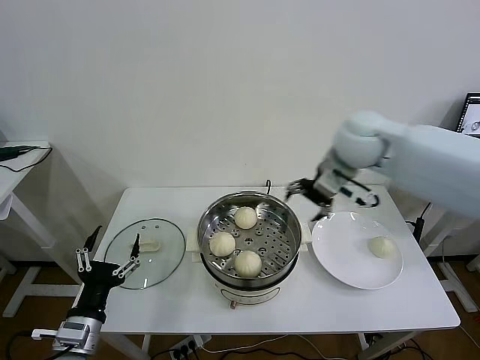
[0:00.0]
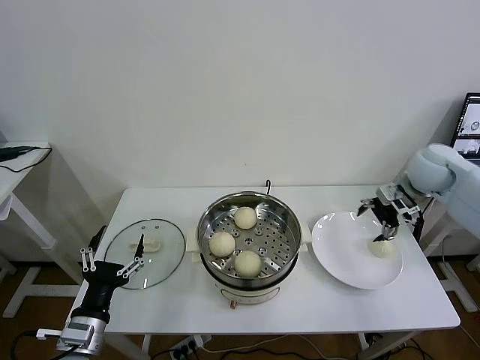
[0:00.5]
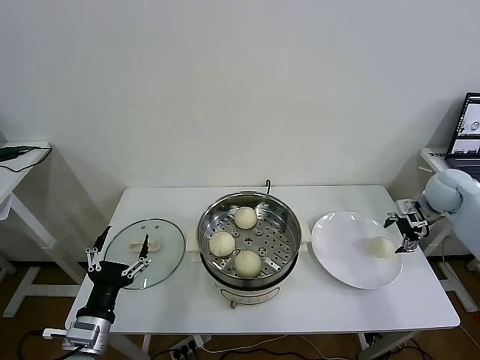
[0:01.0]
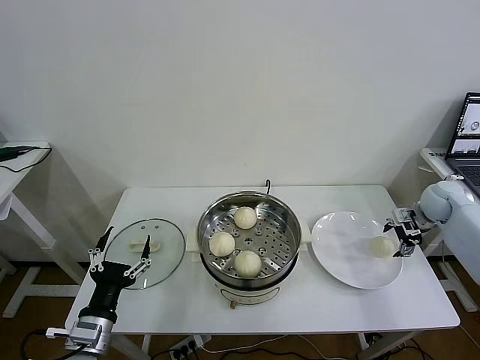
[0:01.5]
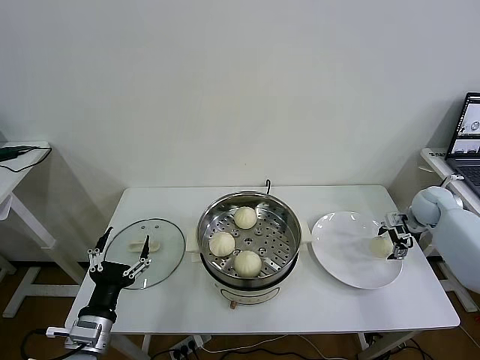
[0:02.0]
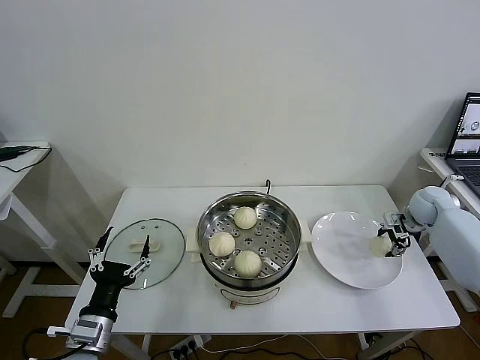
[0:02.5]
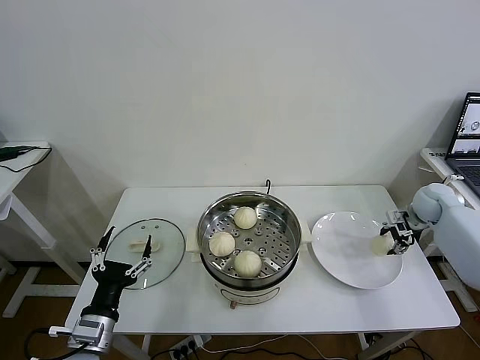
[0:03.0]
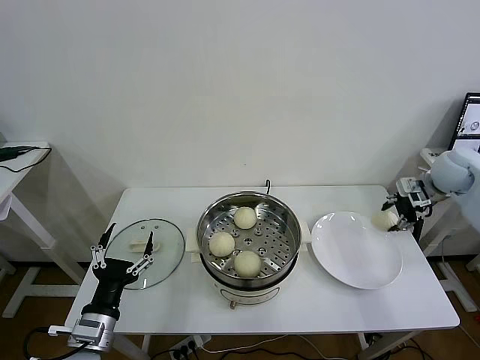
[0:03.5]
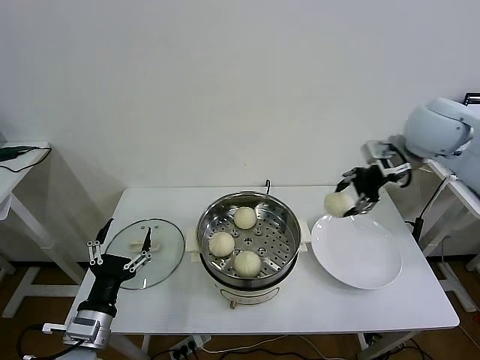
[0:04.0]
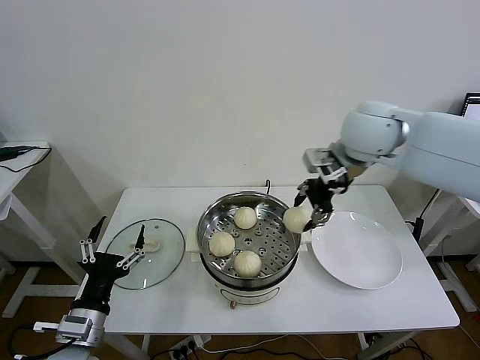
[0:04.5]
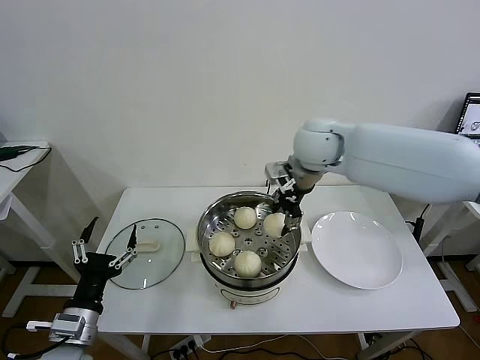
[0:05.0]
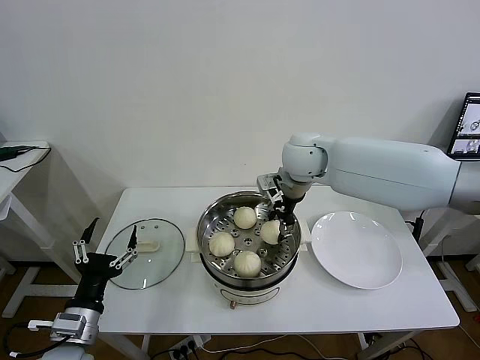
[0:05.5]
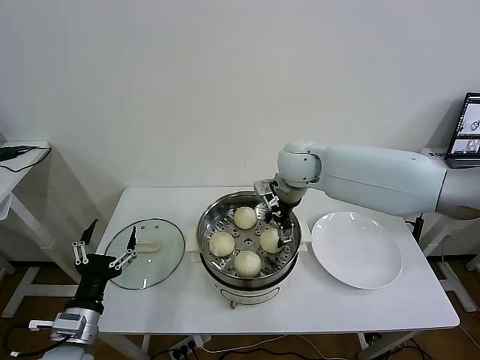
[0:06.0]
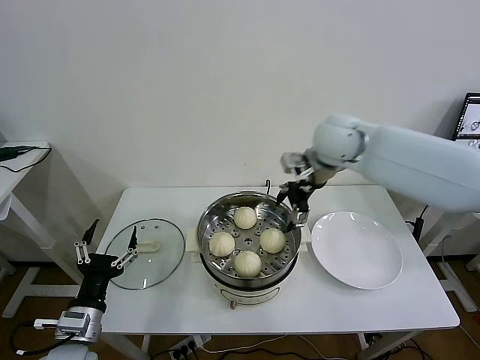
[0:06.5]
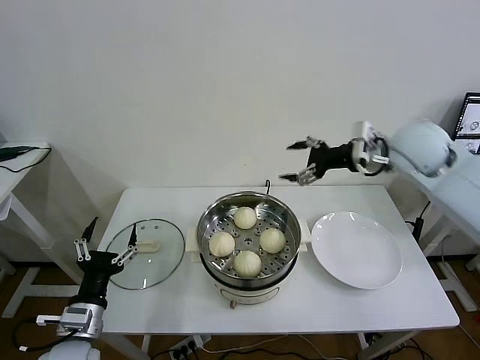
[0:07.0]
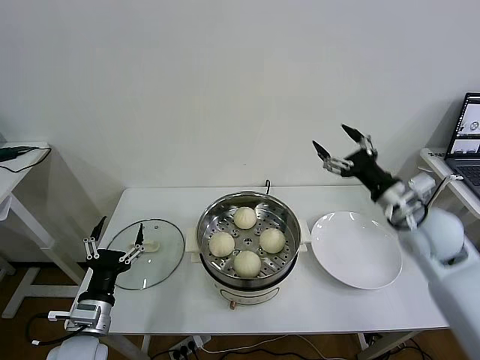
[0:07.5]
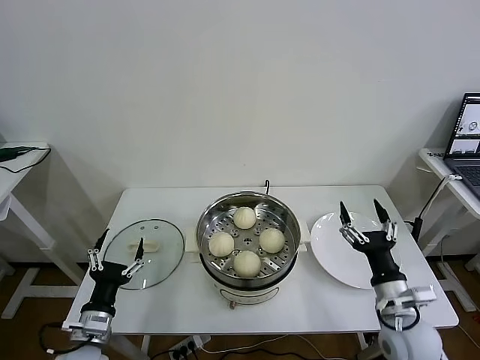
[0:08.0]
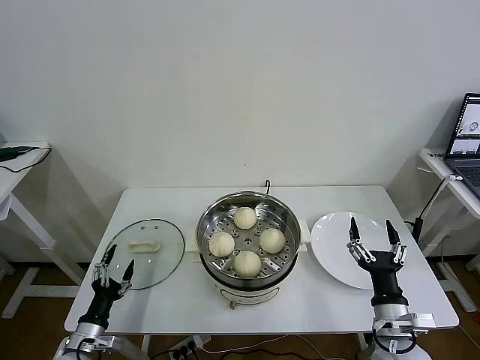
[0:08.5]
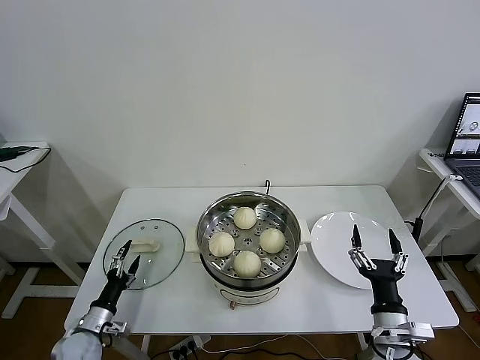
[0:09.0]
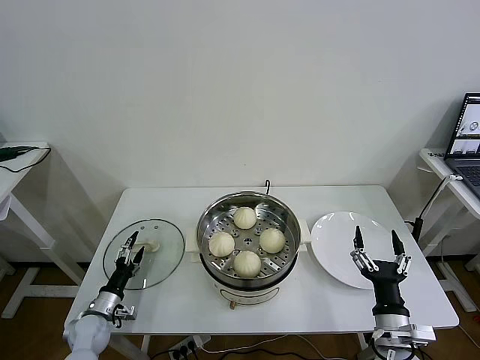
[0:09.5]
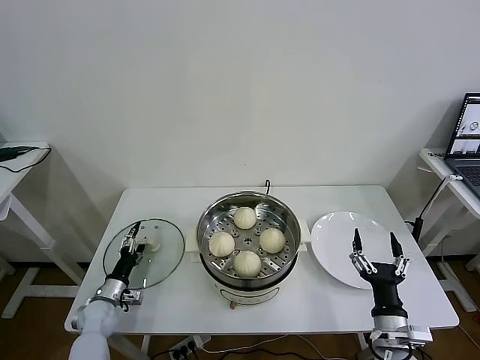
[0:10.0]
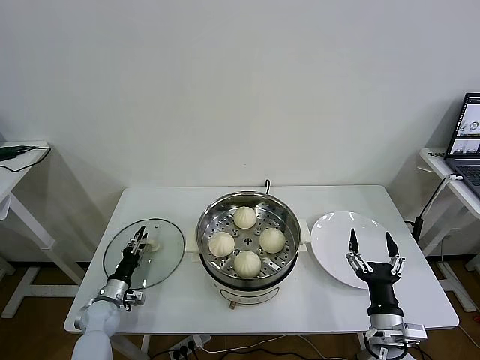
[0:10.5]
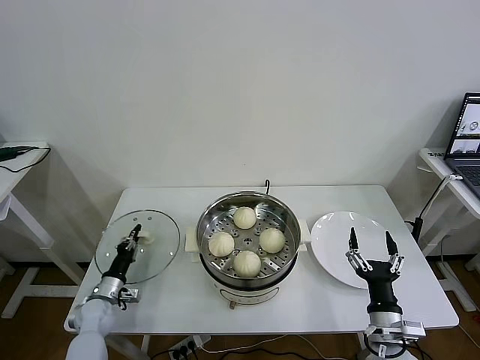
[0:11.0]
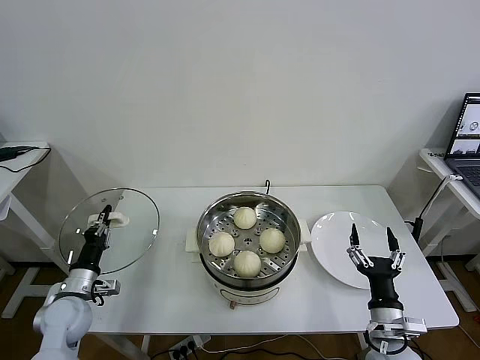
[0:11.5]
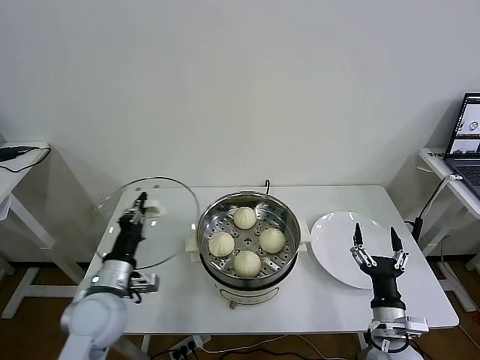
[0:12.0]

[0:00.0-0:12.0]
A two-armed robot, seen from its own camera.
Task of the whole recording: take steamed baozi put them in steamer then cover it.
Step, 0:00.0 to 0:02.5: Grasp the baozi in the plate with right gripper.
Step, 0:03.0 to 0:06.0: Place the baozi on the steamer with right gripper.
Step, 0:06.5 to 0:10.5: Grasp the pot lid with left gripper.
0:00.0 to 0:02.0: The right gripper is displaced to the right and downward by about 35 cm.
0:02.0 to 0:04.0: The right gripper is displaced upward and to the left by approximately 30 cm, and closes up.
0:04.0 to 0:06.0: The right gripper heads to the left and downward, covering about 25 cm, and opens.
0:06.0 to 0:08.0: The left gripper is displaced downward by approximately 5 cm, while the right gripper is displaced backward, to the right and downward by some 40 cm.
0:08.0 to 0:10.0: The left gripper goes roughly 20 cm downward, forward and to the left; the right gripper moves downward and backward, approximately 5 cm.
0:10.0 to 0:12.0: The left gripper shifts roughly 25 cm upward and to the right, and closes up.

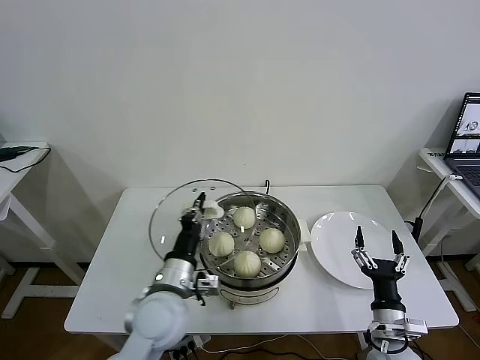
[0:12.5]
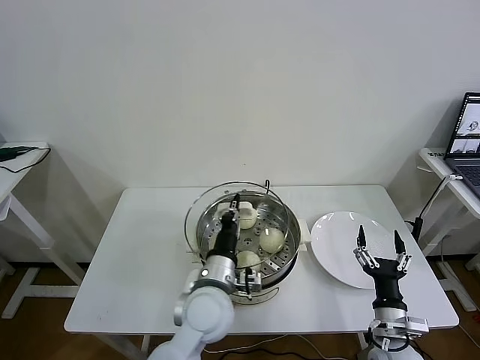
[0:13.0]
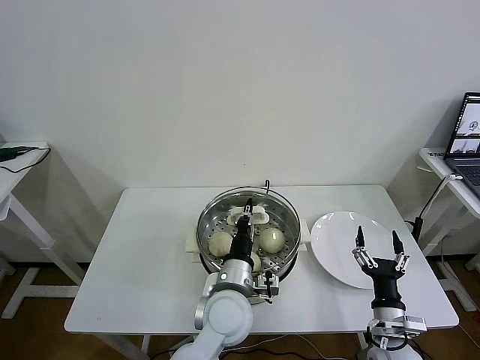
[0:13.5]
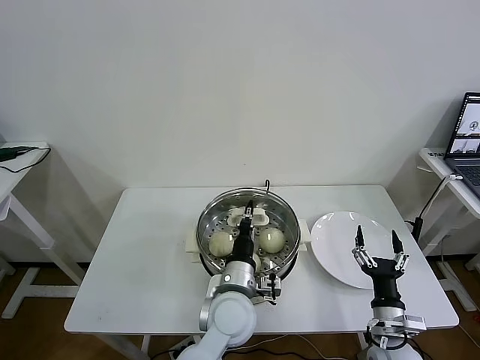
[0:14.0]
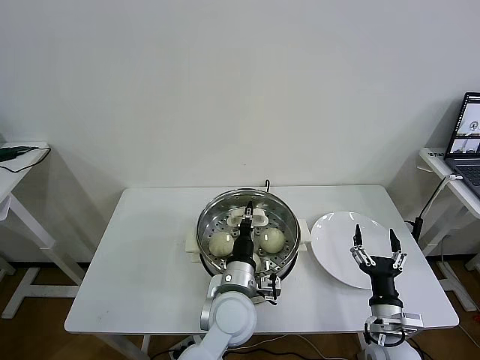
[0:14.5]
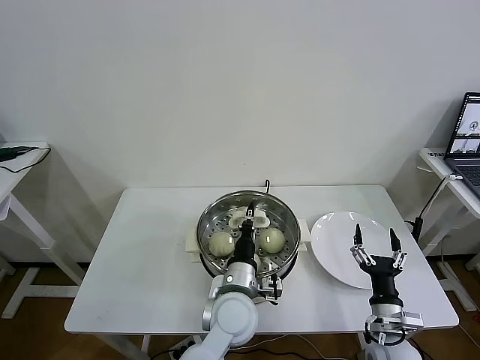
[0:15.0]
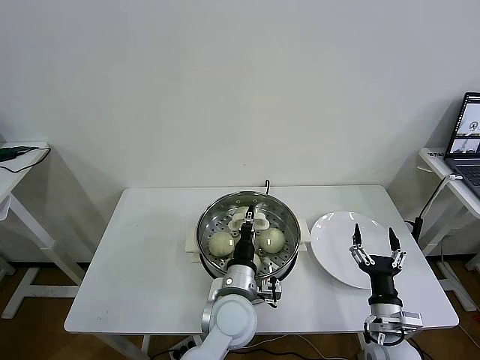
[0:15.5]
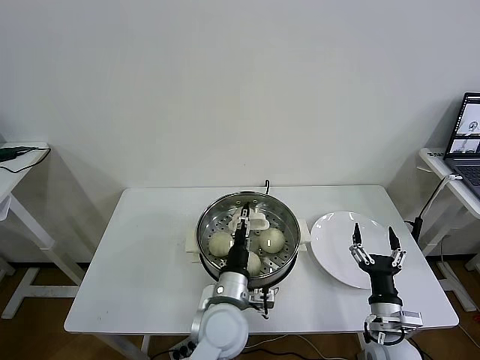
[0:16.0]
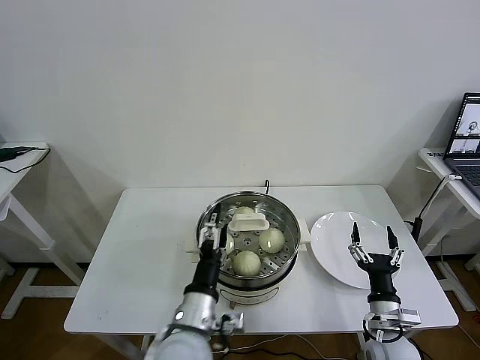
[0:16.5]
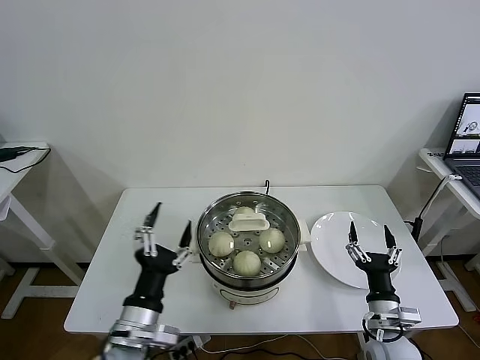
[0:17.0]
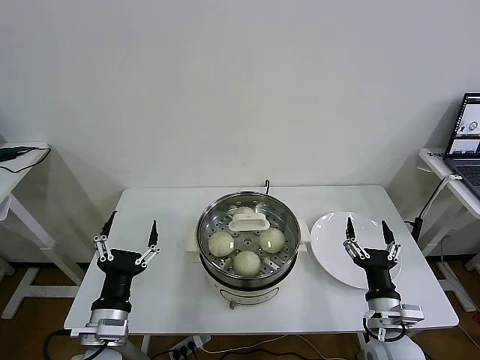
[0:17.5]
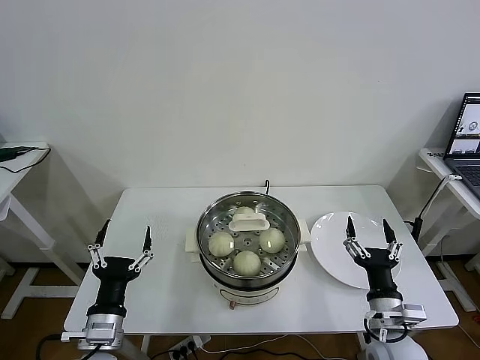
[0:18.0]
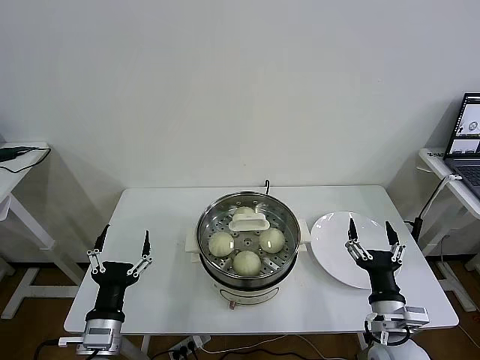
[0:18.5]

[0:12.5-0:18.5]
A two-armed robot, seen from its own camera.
Task of the whole recording: take steamed baozi put them in steamer then cover it.
Step, 0:12.5 to 0:16.5: Place the pot lid on the steamer with left gripper.
0:12.5 to 0:14.5: The left gripper heads to the right, covering some 15 cm.
0:14.5 to 0:16.5: The left gripper moves to the left and backward, some 10 cm, and opens up.
0:16.5 to 0:18.5: The left gripper travels to the left by roughly 15 cm, while the right gripper heads upward, covering approximately 5 cm.

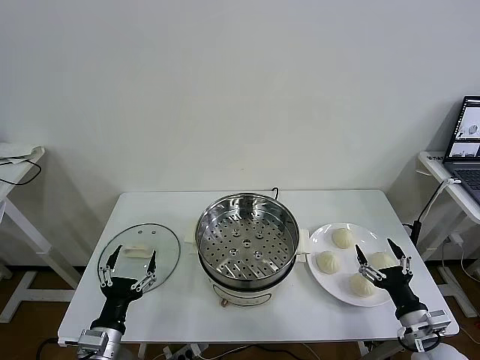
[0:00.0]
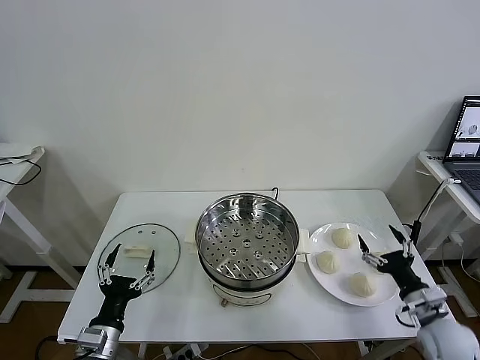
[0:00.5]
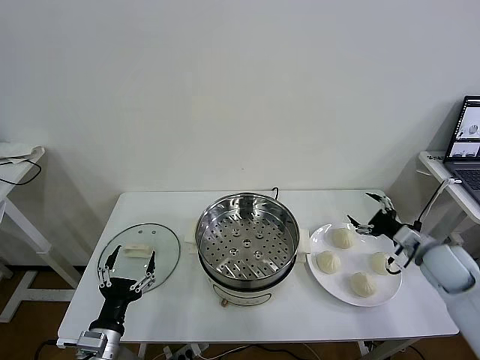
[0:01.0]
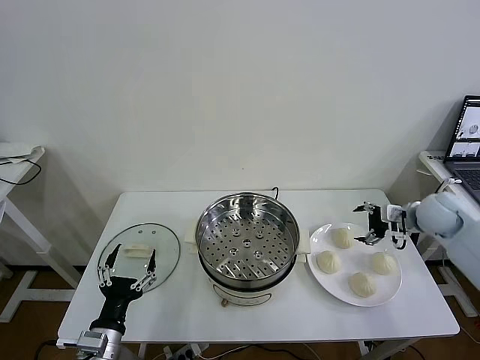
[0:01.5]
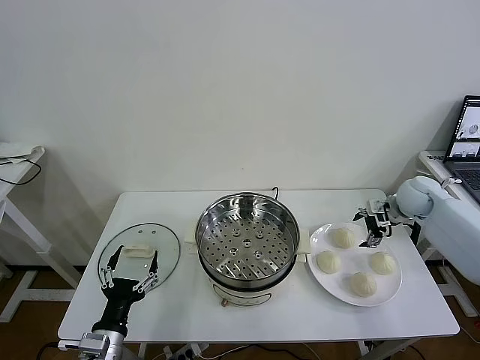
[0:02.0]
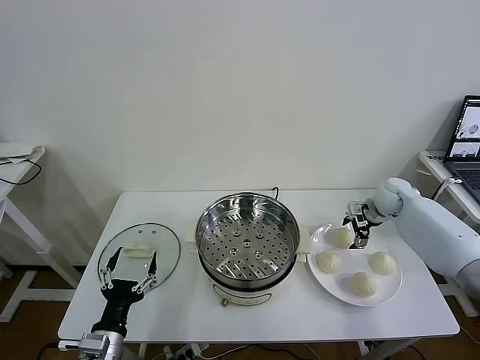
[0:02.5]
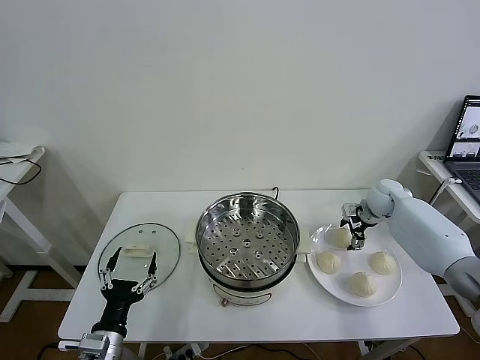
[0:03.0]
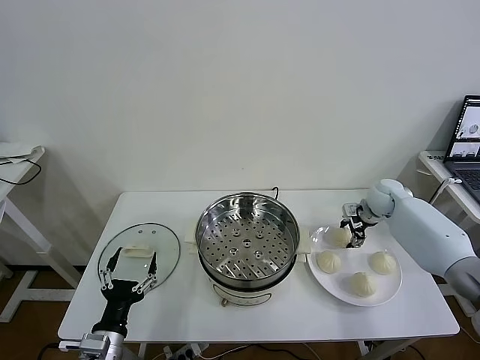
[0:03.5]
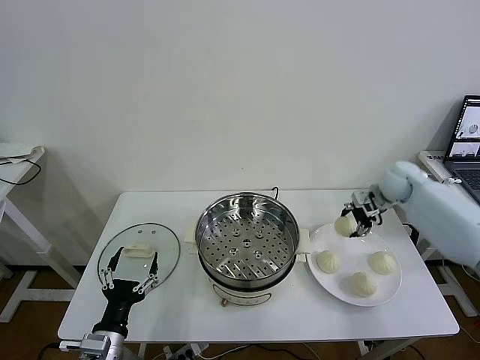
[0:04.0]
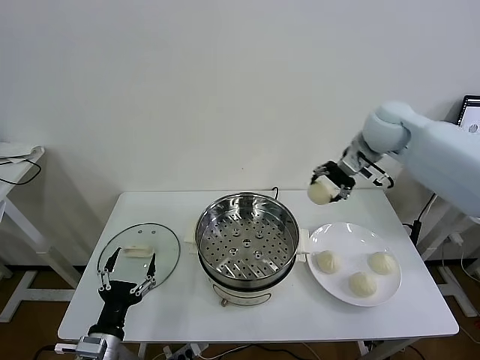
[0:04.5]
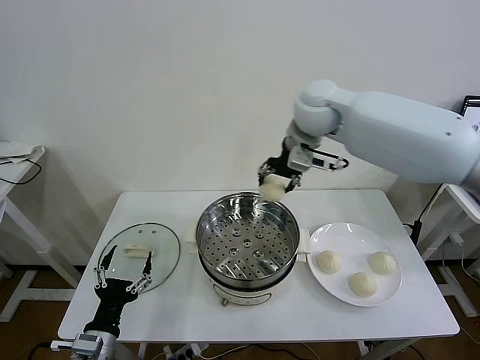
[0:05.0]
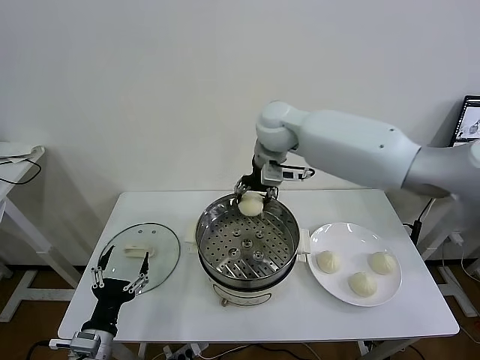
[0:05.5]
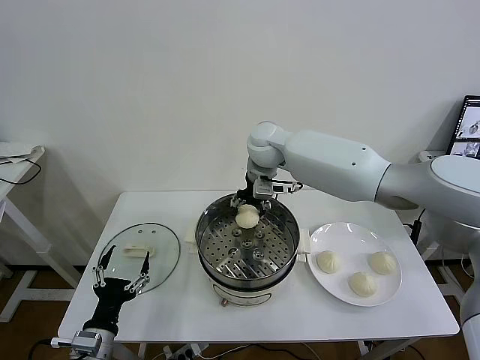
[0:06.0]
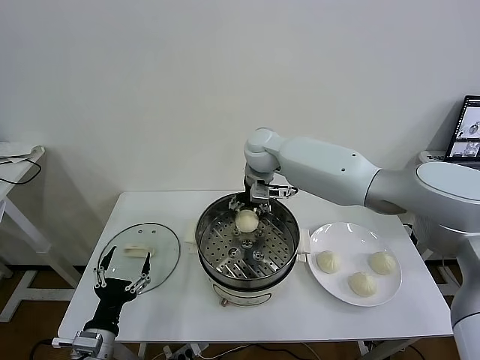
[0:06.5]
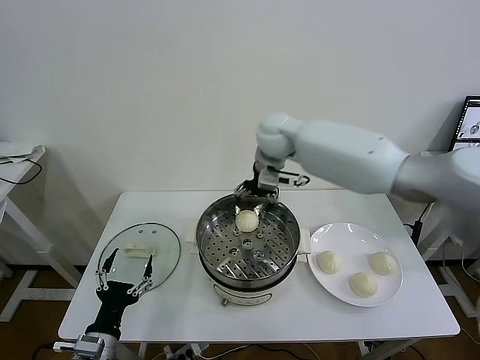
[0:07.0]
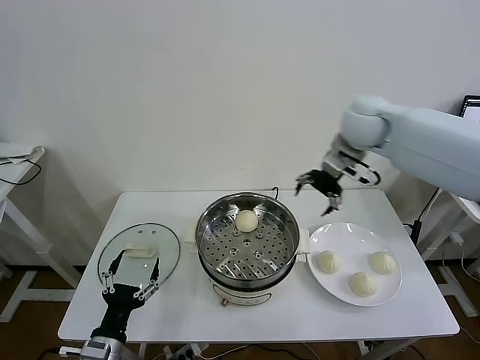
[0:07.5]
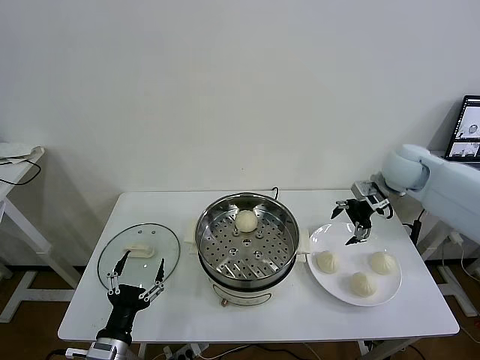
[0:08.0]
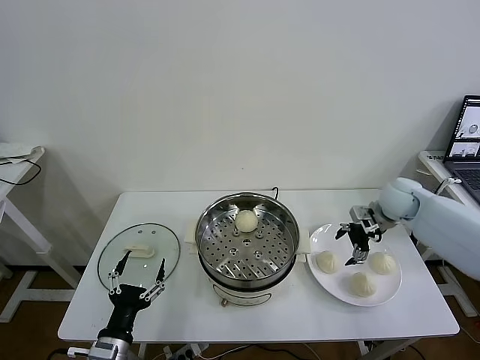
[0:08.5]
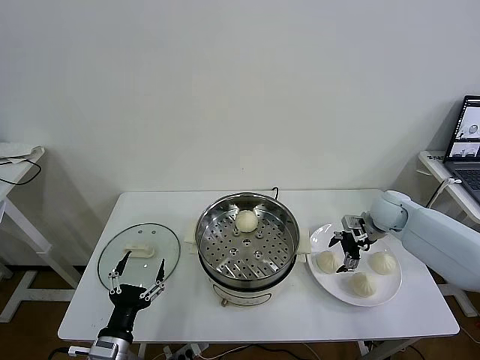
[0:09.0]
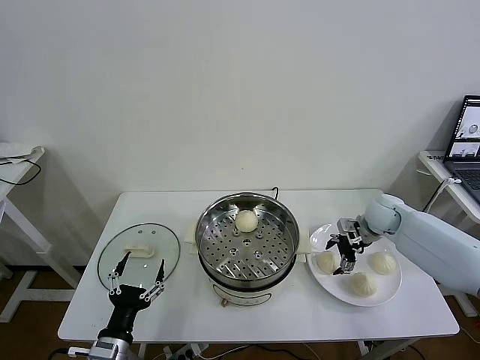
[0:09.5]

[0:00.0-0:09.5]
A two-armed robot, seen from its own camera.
Task of the whole recording: take steamed baozi put them in steamer then cover it.
Step, 0:00.0 to 0:03.5: Grasp the baozi in the plate with right gripper.
Step, 0:04.0 to 0:06.5: Place the baozi on the steamer with right gripper.
0:02.0 to 0:04.0: The right gripper travels upward by roughly 5 cm, and closes.
0:04.0 to 0:05.5: The right gripper shifts approximately 30 cm to the left.
0:05.5 to 0:07.5: The right gripper travels to the right by roughly 20 cm, and opens up.
0:07.5 to 0:09.5: The right gripper moves downward, about 25 cm.
